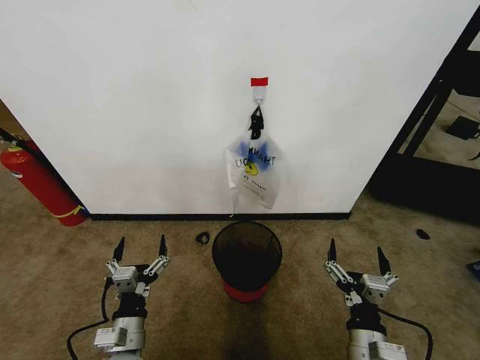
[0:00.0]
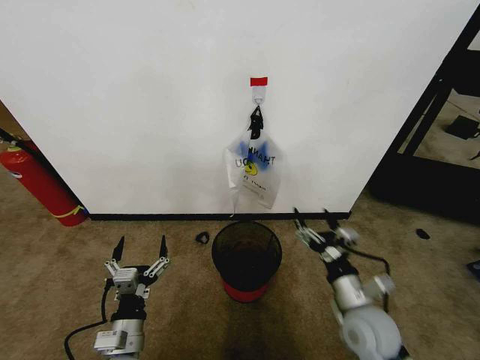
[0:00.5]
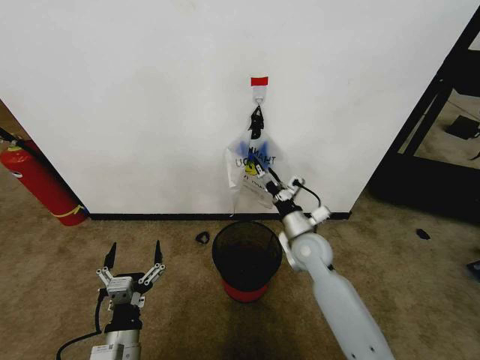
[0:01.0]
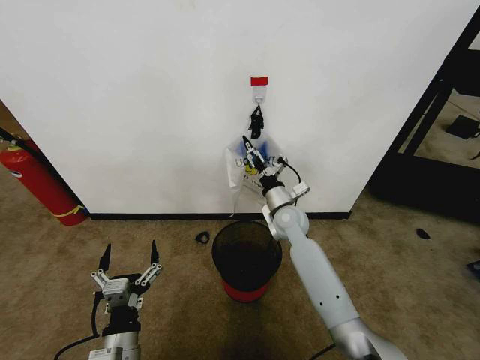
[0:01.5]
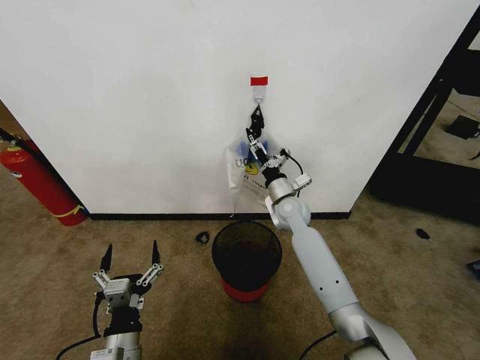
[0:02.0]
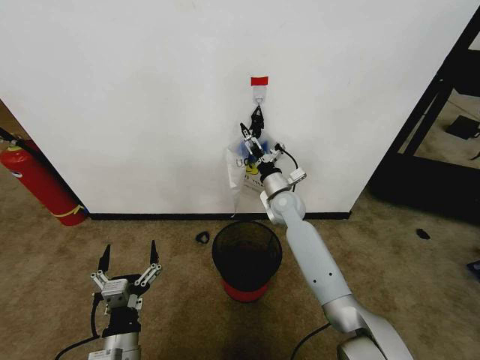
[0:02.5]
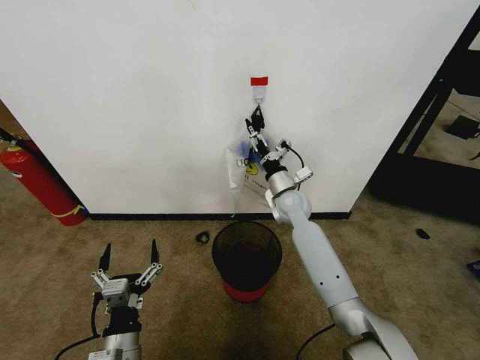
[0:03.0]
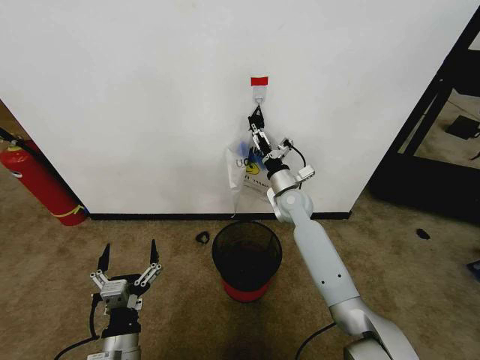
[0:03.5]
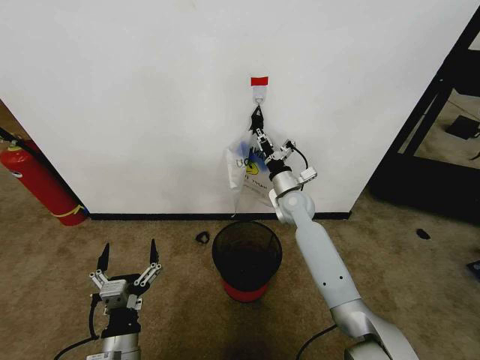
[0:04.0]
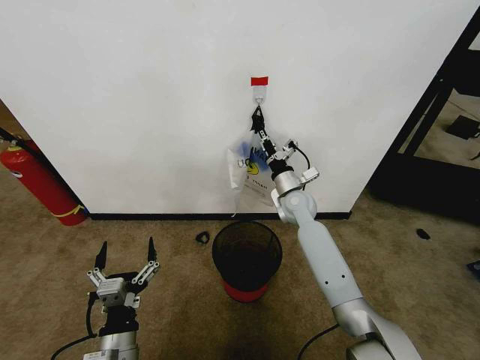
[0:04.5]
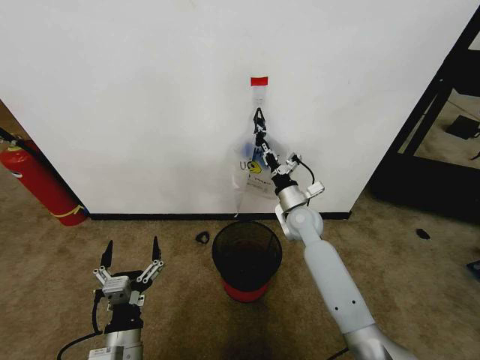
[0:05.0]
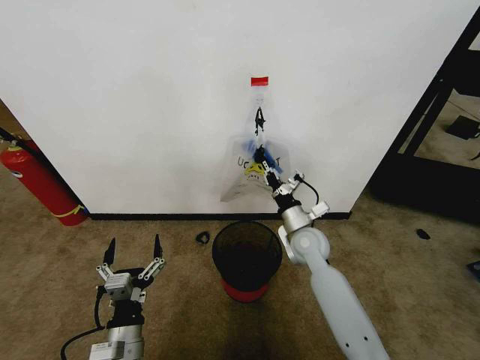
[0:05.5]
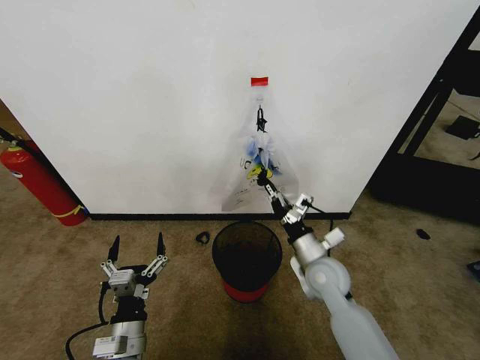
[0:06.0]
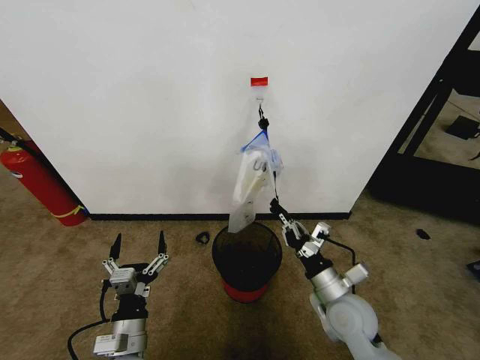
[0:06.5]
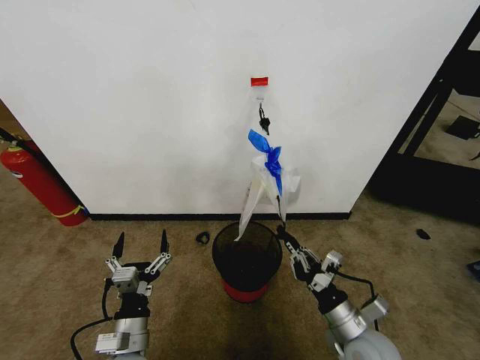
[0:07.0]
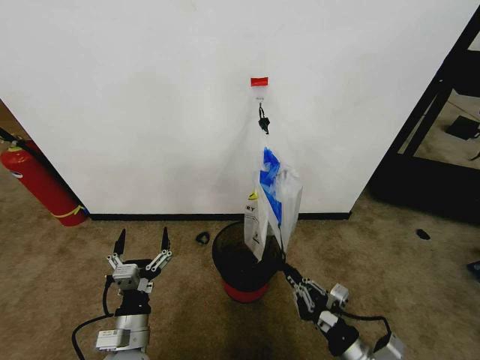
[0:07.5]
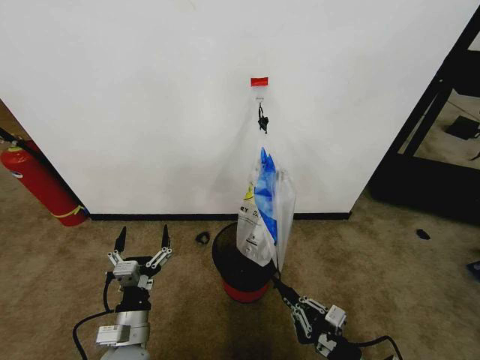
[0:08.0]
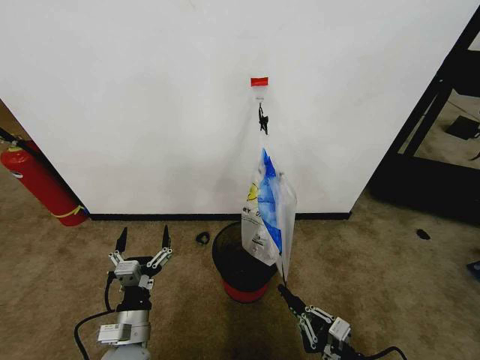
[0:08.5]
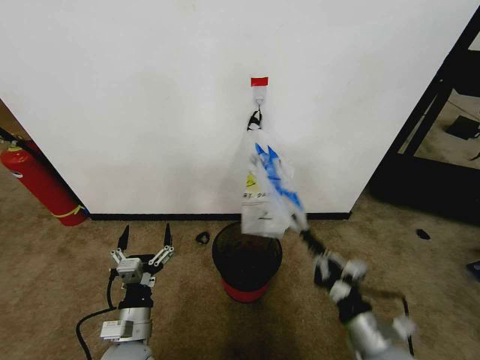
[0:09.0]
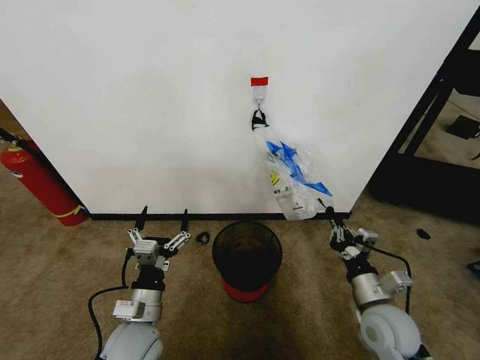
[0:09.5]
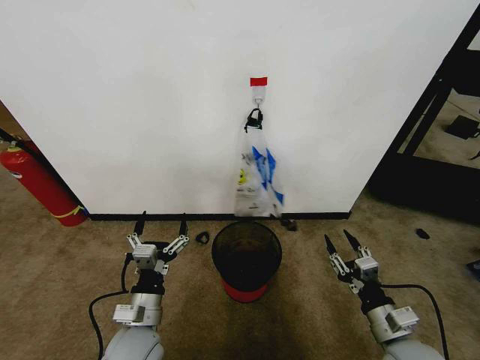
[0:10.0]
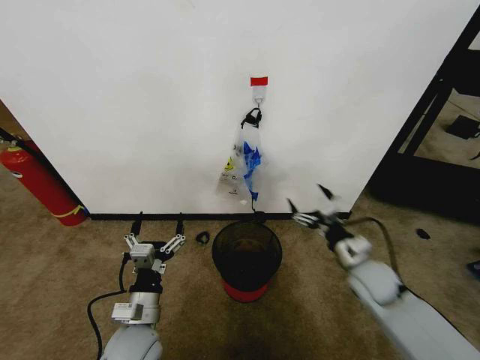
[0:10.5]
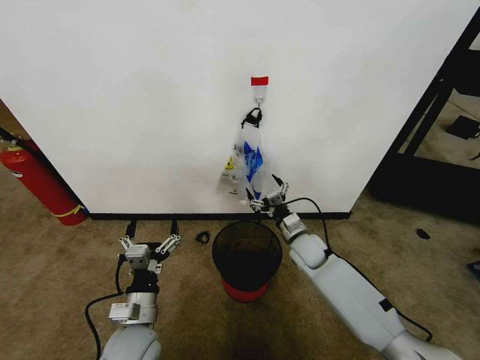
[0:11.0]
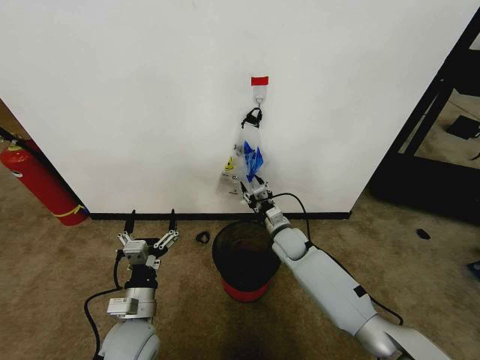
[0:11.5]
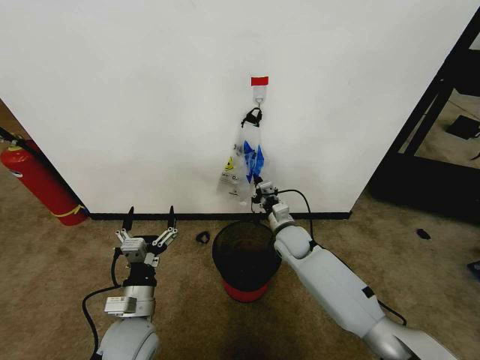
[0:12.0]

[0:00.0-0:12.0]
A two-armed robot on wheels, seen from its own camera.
Task of the whole recording: Pick up the garbage bag from the wall and place it over the trash bin.
0:02.0 to 0:04.0: The right gripper closes its fingers.
0:04.0 to 0:06.0: The right gripper moves backward, about 20 cm.
0:06.0 to 0:08.0: The right gripper heads backward, covering about 25 cm.
0:08.0 to 0:10.0: The right gripper travels forward by about 5 cm, and opens its fingers.
0:10.0 to 0:12.0: The right gripper is displaced forward and to the left by approximately 35 cm, and closes.

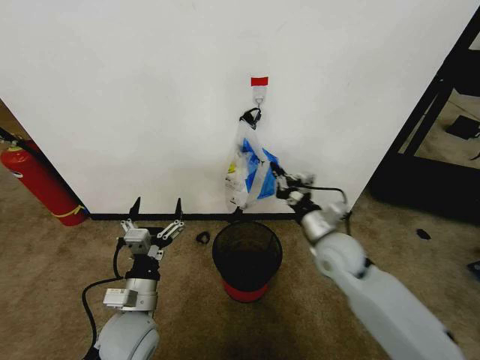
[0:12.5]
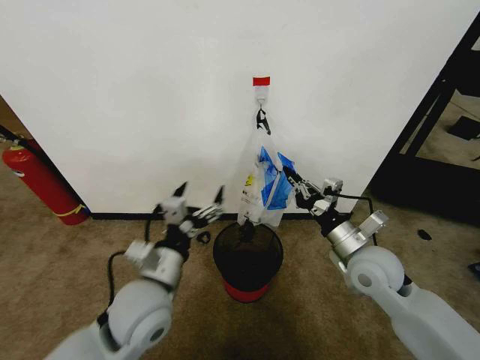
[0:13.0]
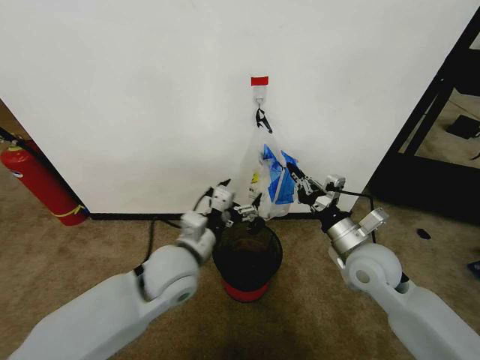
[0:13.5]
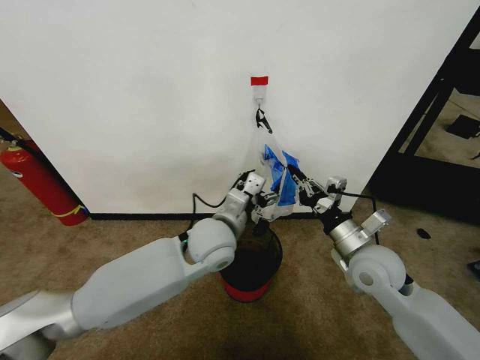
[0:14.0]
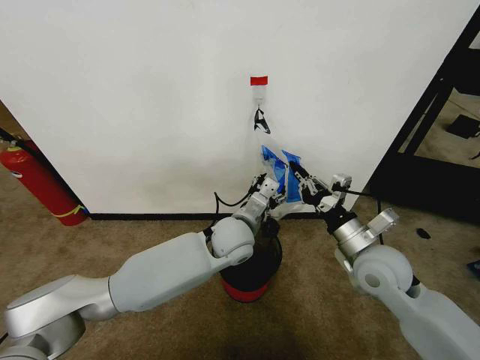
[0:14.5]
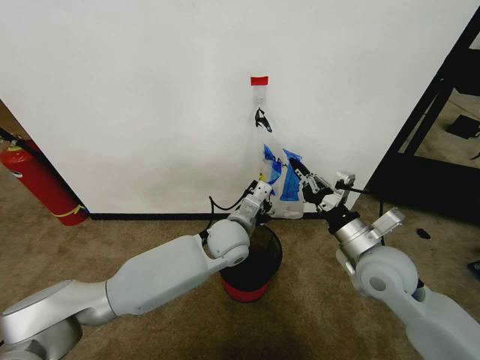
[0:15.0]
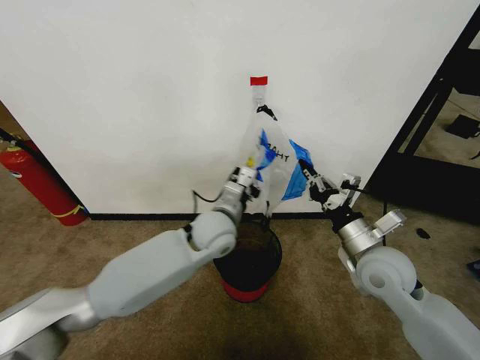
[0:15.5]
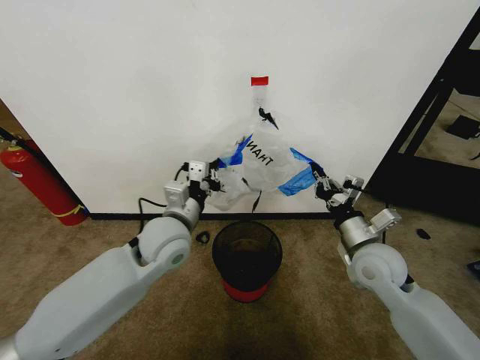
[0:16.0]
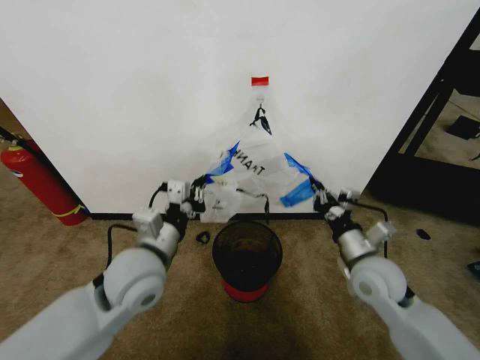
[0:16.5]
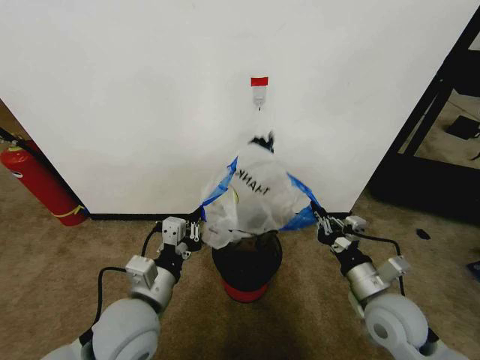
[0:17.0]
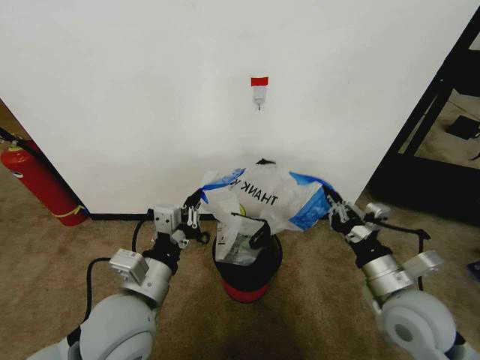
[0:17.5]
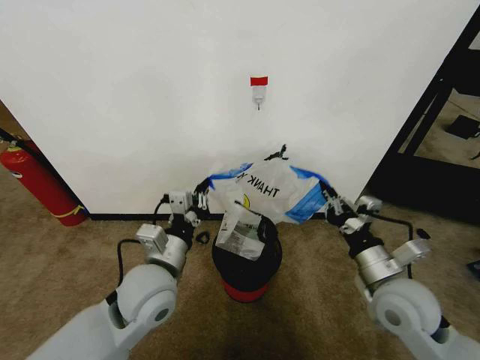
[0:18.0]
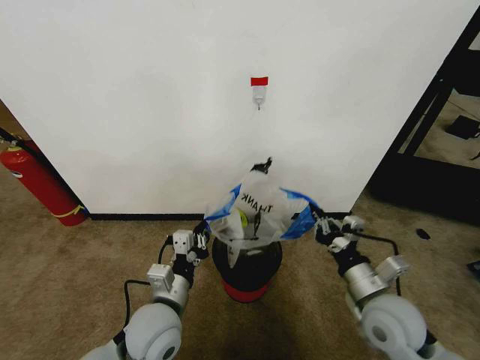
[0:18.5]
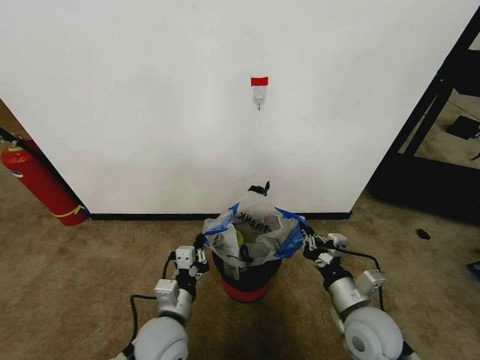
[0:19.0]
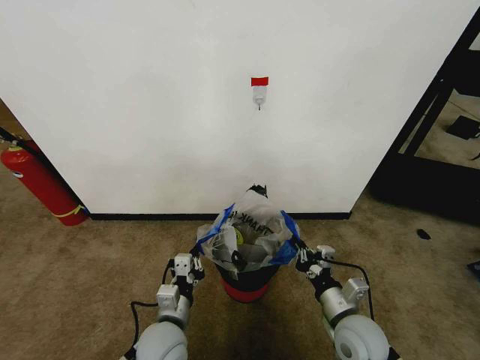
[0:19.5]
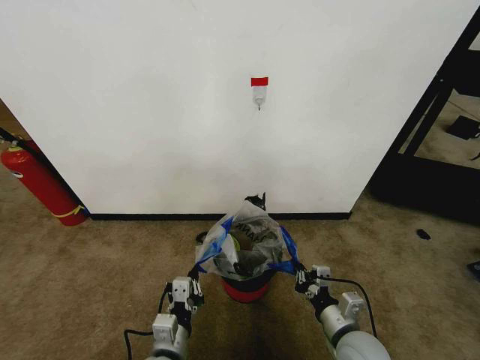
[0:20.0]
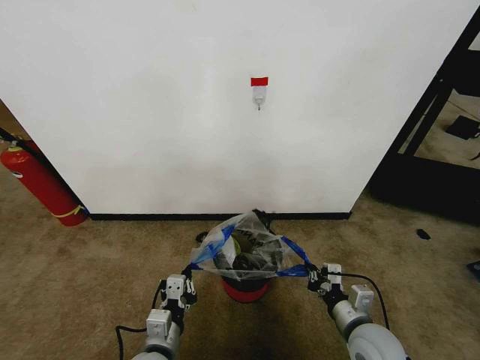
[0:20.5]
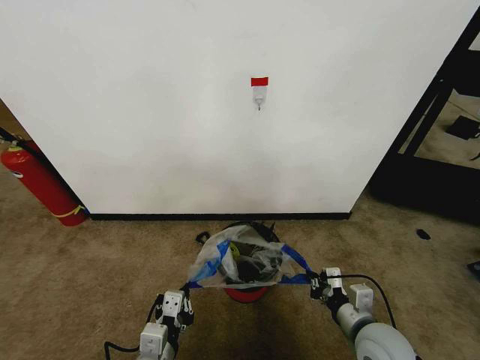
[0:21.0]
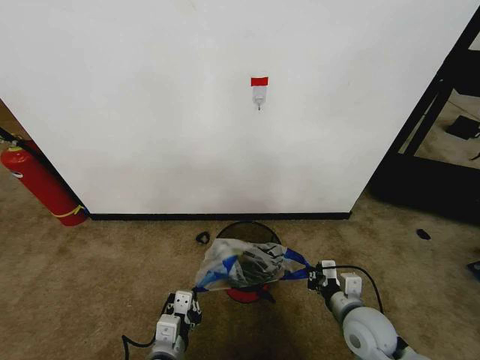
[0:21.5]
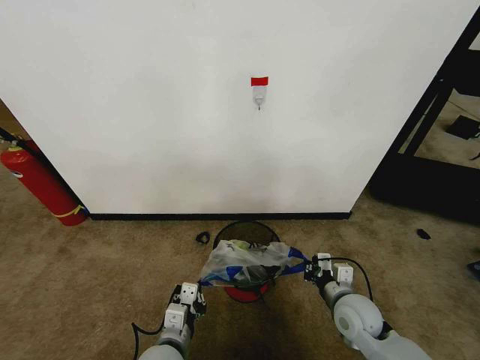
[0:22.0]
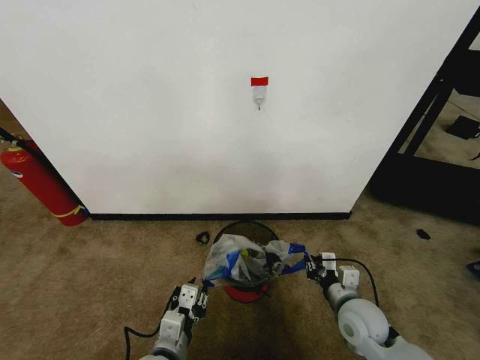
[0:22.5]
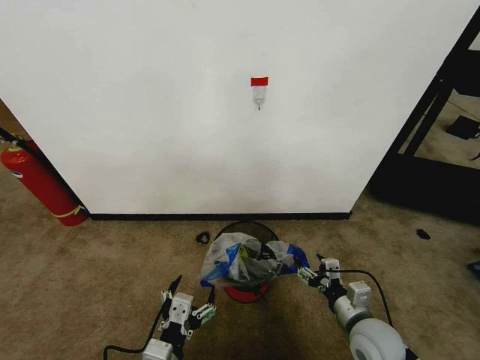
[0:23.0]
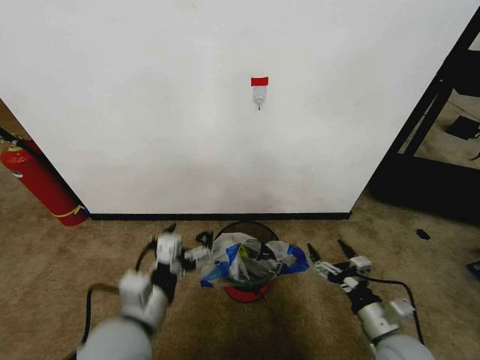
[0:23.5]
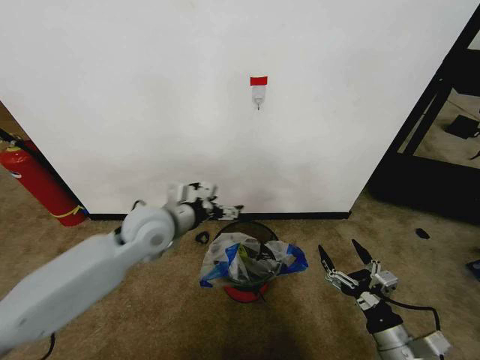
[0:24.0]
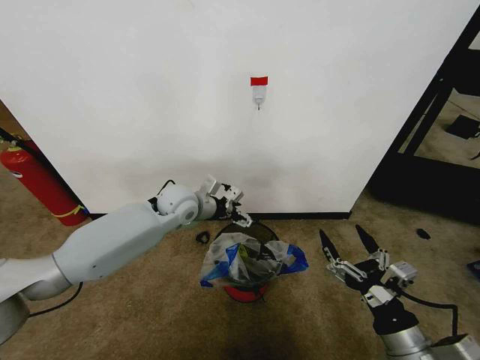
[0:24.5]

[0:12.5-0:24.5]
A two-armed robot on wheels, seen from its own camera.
Task of the whole recording: Pick up the garbage bag from the wall and place it over the trash bin.
0:12.5 to 0:14.5: The right gripper moves to the right and backward, approximately 10 cm; the left gripper goes some 25 cm to the right and forward.
0:14.5 to 0:16.5: The left gripper is displaced to the left, backward and upward by approximately 20 cm, and closes.
0:16.5 to 0:18.5: The left gripper goes up and down, approximately 10 cm each way, reversing 2 times. The right gripper is displaced backward by about 10 cm.
0:18.5 to 0:20.5: The left gripper heads backward and downward, covering roughly 10 cm; the right gripper moves downward, some 10 cm.
0:20.5 to 0:22.5: The right gripper is displaced forward by roughly 5 cm; the left gripper opens up.
0:22.5 to 0:24.5: The right gripper goes some 15 cm backward and upward, and opens its fingers. Meanwhile the left gripper travels forward by some 35 cm, and opens up.

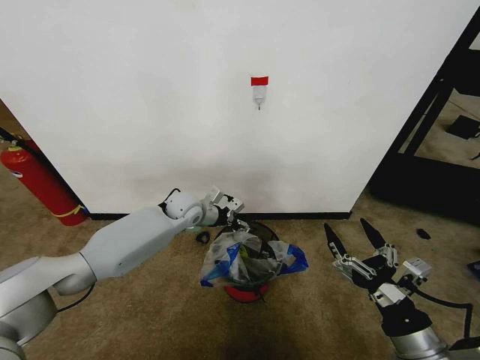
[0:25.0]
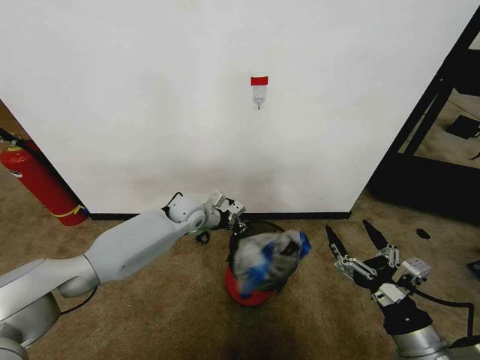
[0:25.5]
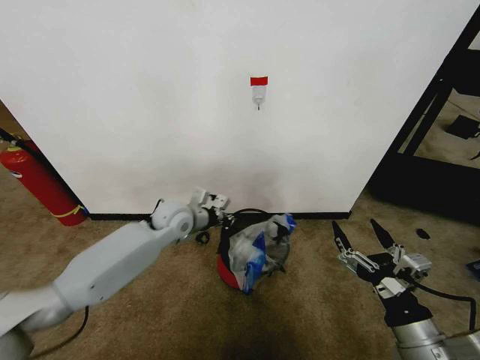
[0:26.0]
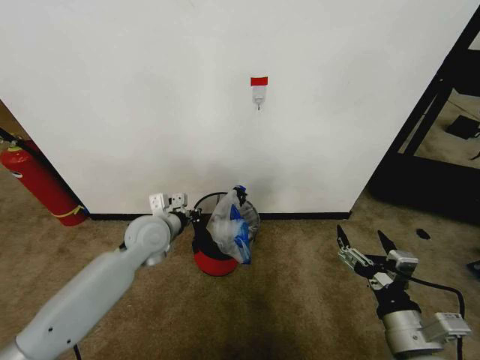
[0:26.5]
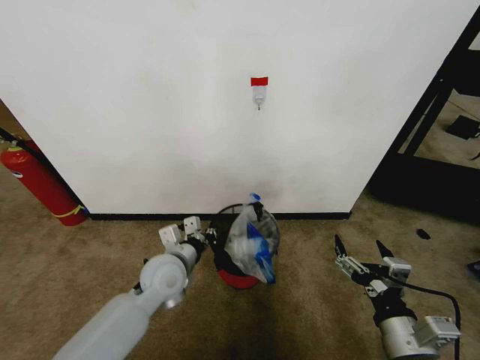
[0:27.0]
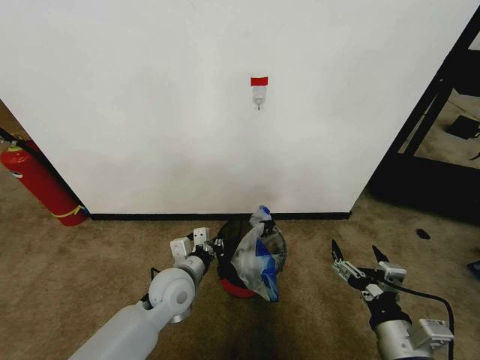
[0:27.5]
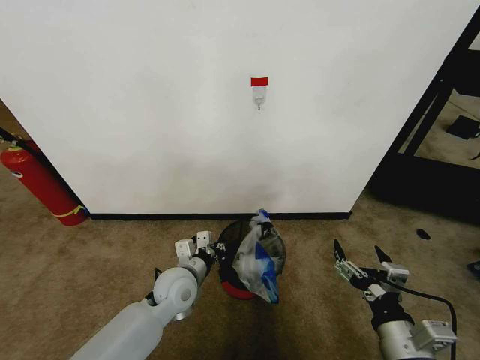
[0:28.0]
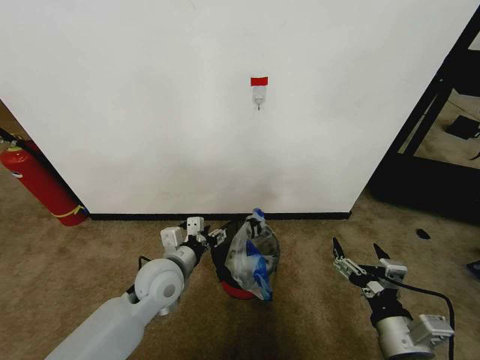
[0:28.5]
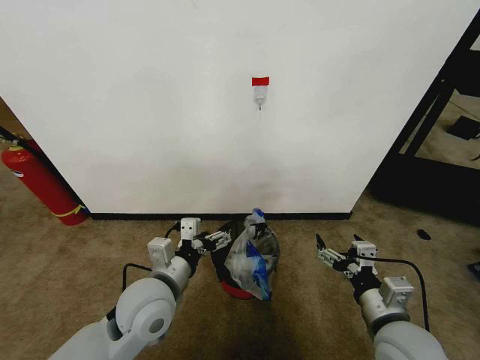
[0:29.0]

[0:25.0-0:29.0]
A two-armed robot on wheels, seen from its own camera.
Task of the whole recording: Pick up the garbage bag from the wall and place it over the trash bin.
0:25.0 to 0:27.0: The left gripper is displaced backward by roughly 20 cm, and closes up.
0:27.0 to 0:29.0: The right gripper shifts some 5 cm forward; the left gripper travels backward and upward by roughly 10 cm, and opens its fingers.
